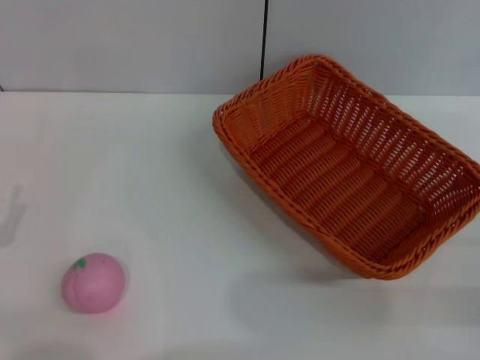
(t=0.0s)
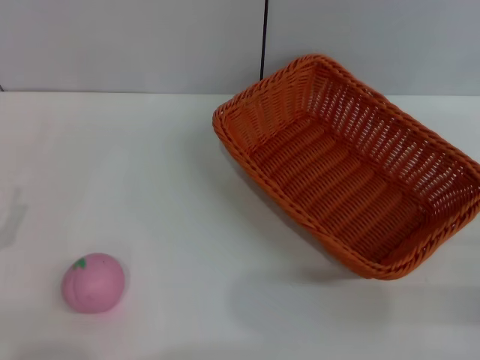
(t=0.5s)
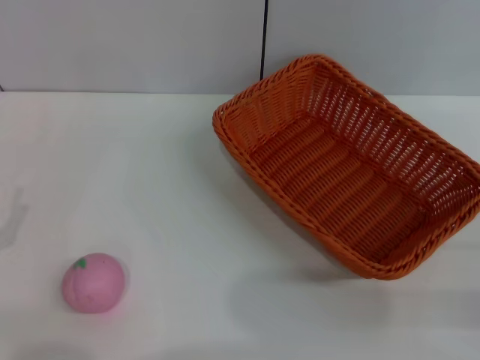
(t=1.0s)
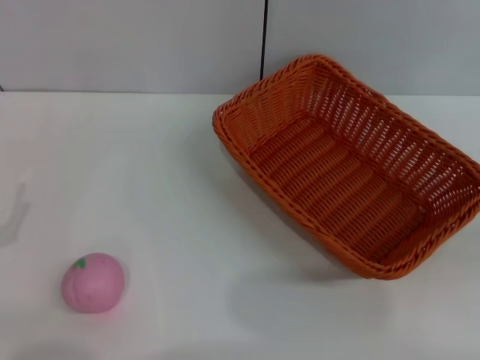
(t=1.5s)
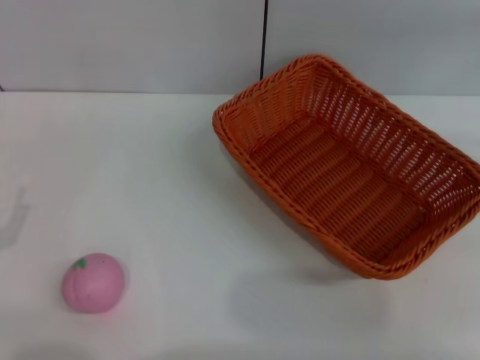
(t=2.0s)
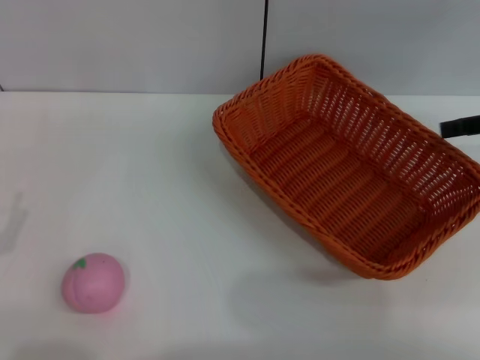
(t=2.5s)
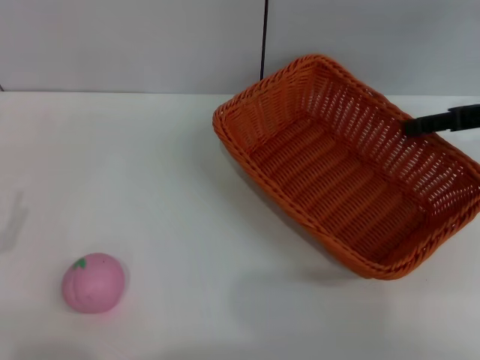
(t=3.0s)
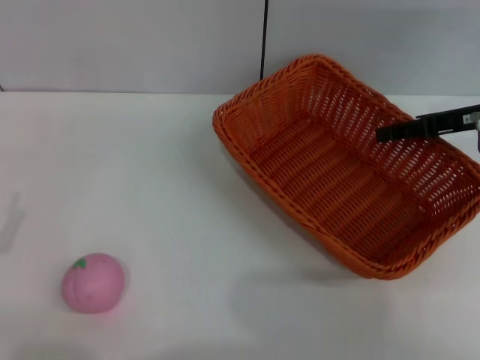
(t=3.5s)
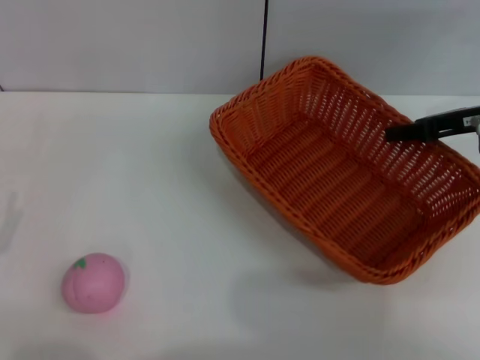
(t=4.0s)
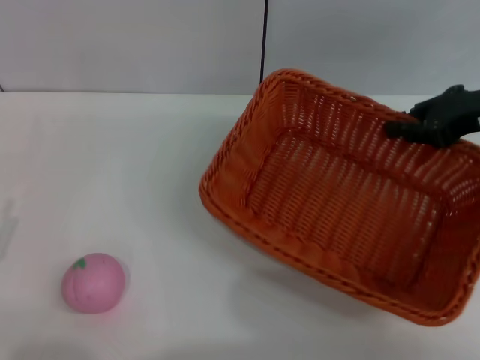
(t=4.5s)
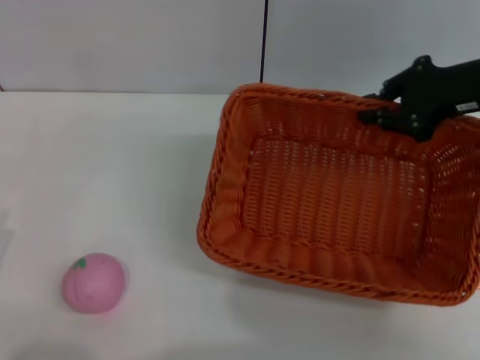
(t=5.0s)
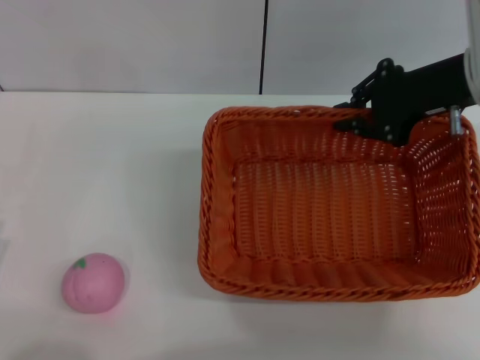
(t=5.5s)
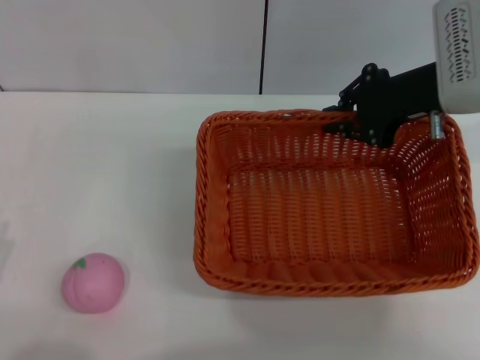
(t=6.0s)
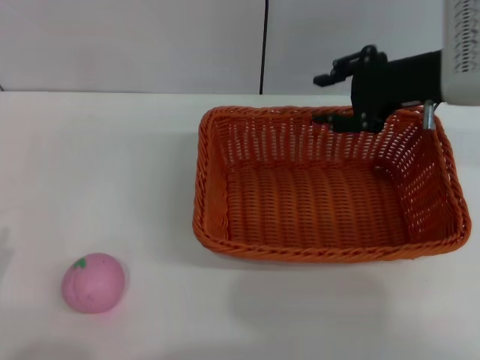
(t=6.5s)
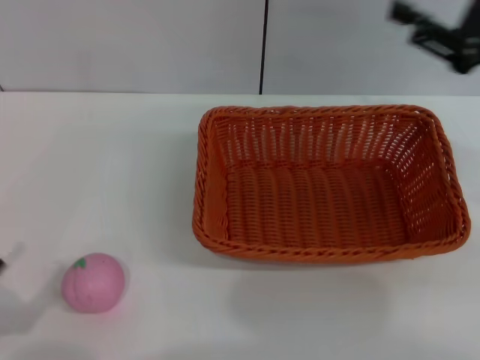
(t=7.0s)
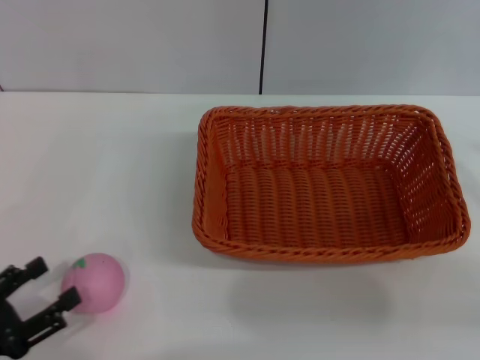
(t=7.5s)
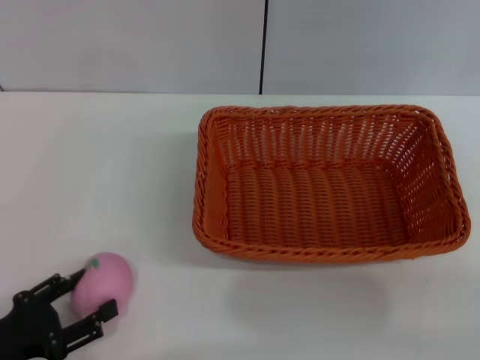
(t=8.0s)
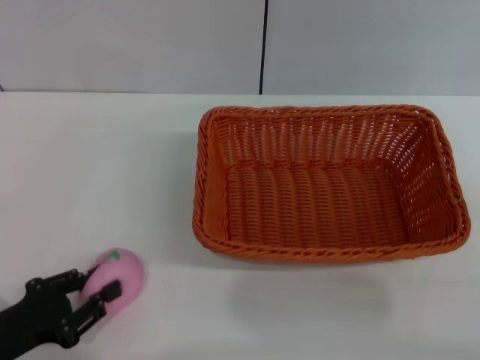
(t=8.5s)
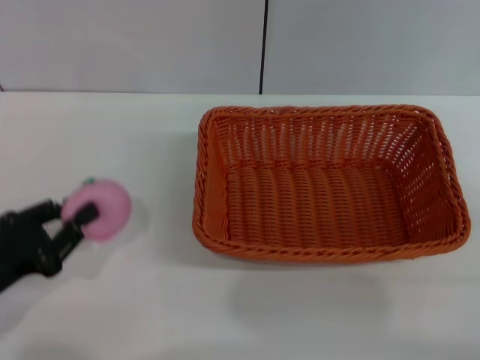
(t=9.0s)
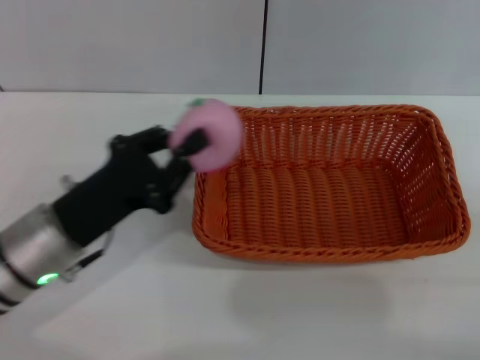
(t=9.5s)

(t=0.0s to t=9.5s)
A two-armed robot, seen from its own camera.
Step, t=0.0s - t=4.5s: Pick up the light basket with the right gripper.
Step, t=5.0s - t=6.5s: Place the light basket in the center of view with the right gripper.
Step, t=7.0s - t=9.0s: Pick up the peach with the left gripper.
t=2.0s - t=4.0s: The right gripper moves to the left, forward and downward, some 15 cm, and closes up.
t=4.0s - t=5.5s: The right gripper travels to the left by roughly 5 cm, and closes its fingers.
t=5.5s - t=7.5s: The right gripper travels backward and to the right by roughly 20 cm, and opens its fingers.
t=7.5s - t=9.5s: The right gripper goes approximately 5 cm downward. The left gripper moves forward and to the right, roughly 20 cm, and closes.

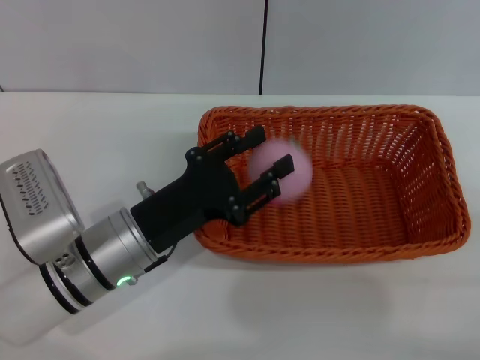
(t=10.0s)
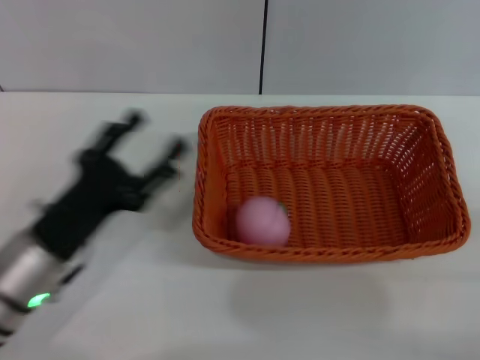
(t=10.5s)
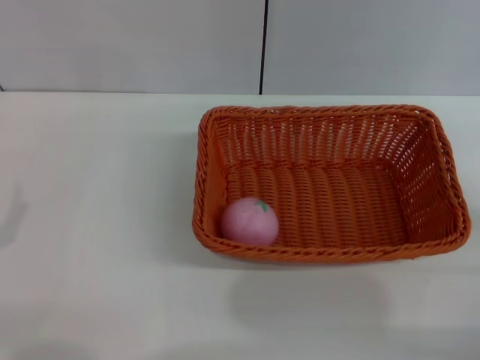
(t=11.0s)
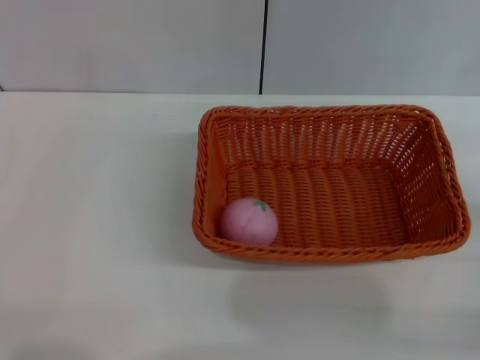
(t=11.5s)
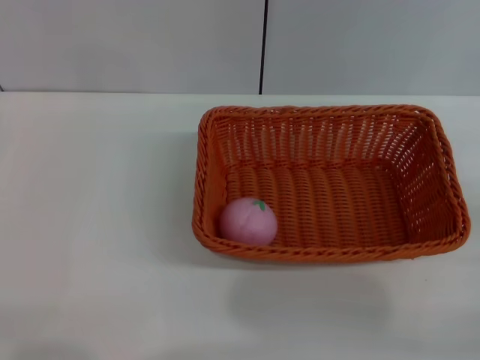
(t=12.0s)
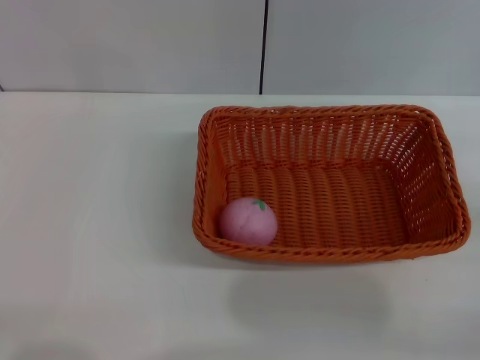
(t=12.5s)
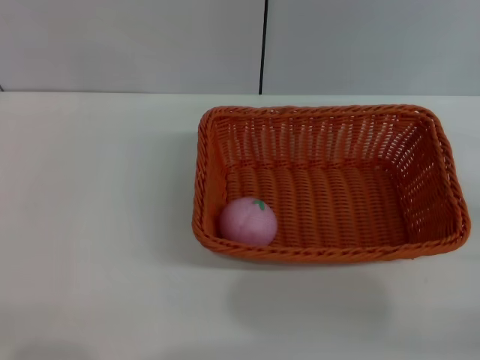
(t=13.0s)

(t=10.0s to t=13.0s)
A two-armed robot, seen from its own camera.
t=10.0s - t=11.5s: The left gripper travels to the left and backward by some 20 cm, and opens up.

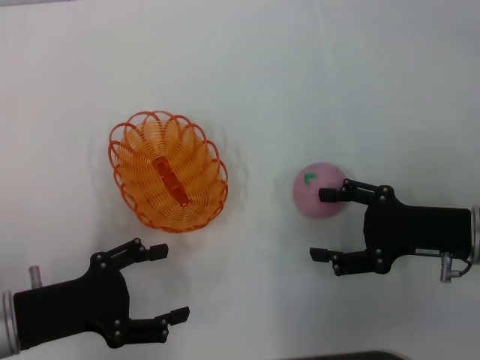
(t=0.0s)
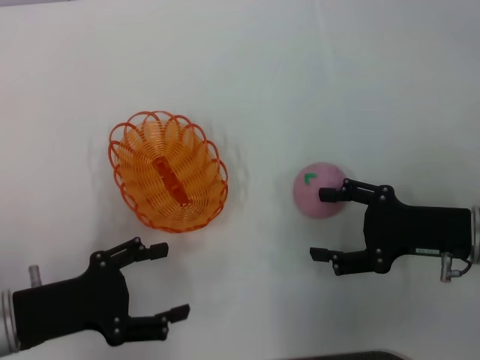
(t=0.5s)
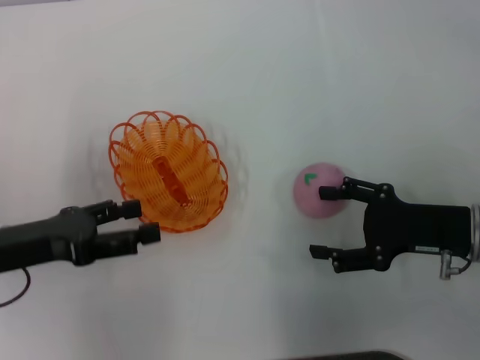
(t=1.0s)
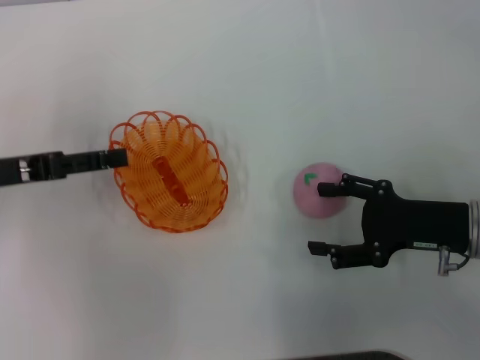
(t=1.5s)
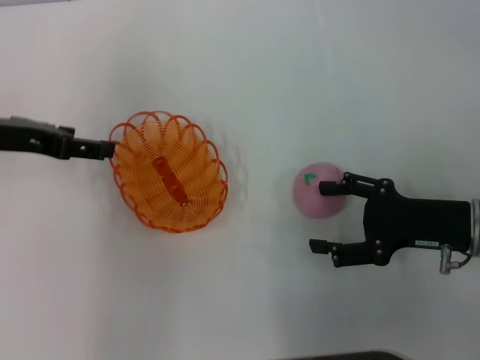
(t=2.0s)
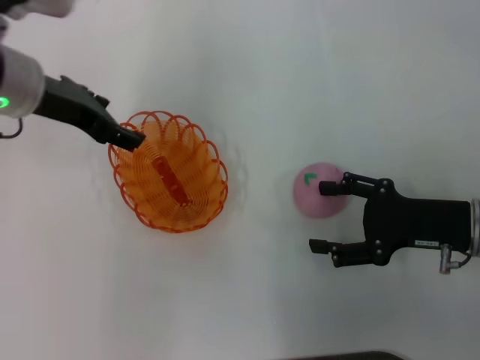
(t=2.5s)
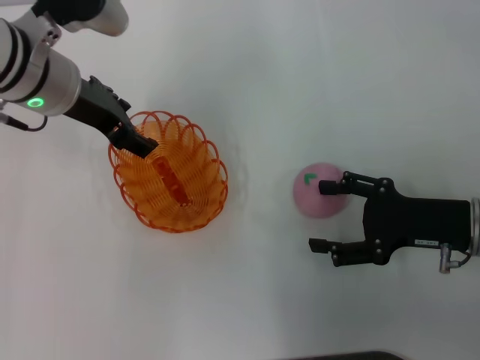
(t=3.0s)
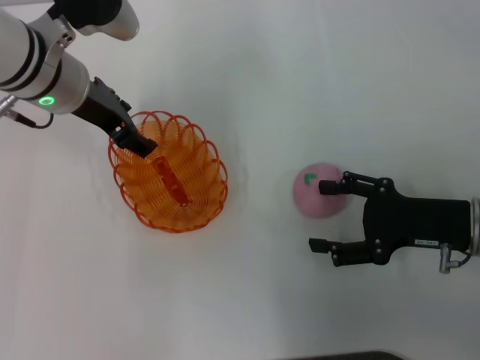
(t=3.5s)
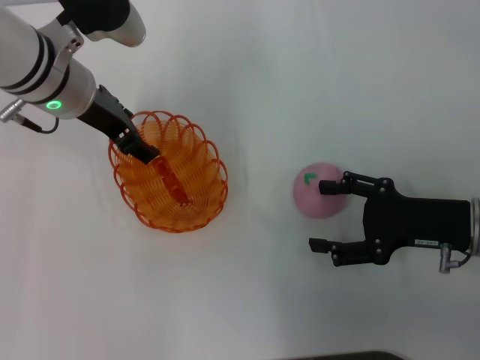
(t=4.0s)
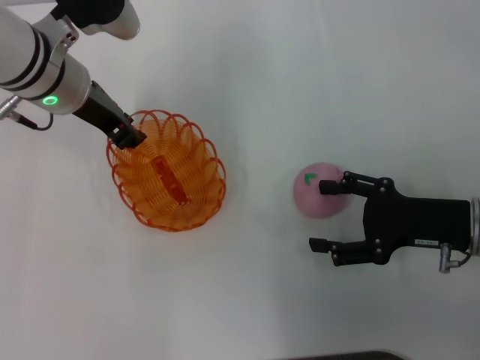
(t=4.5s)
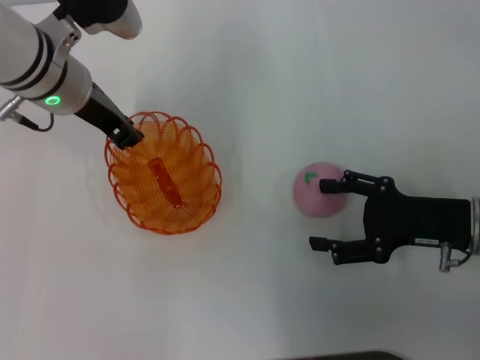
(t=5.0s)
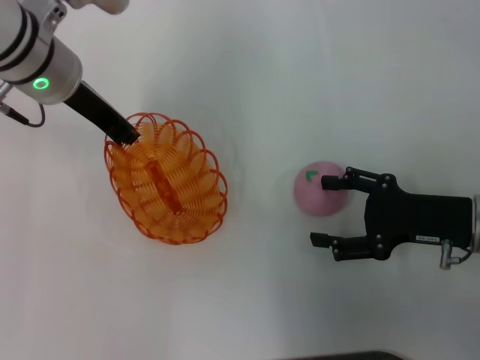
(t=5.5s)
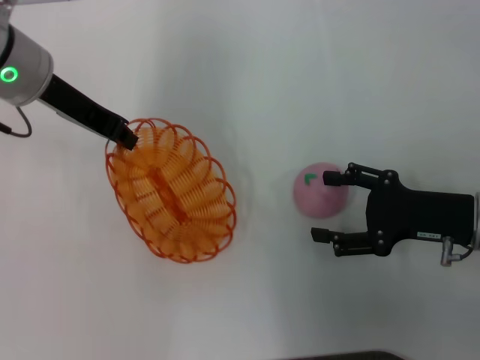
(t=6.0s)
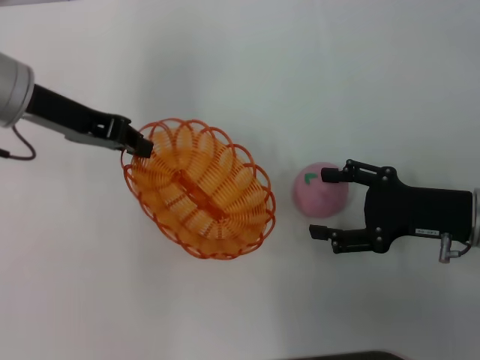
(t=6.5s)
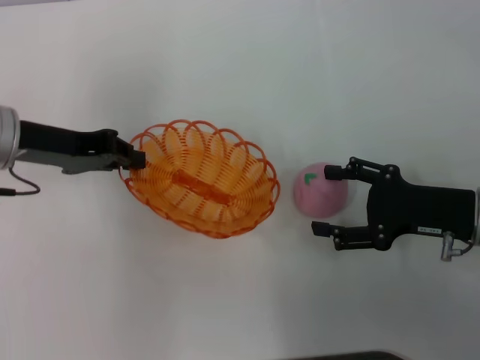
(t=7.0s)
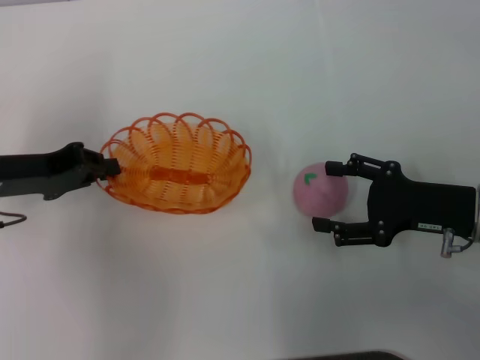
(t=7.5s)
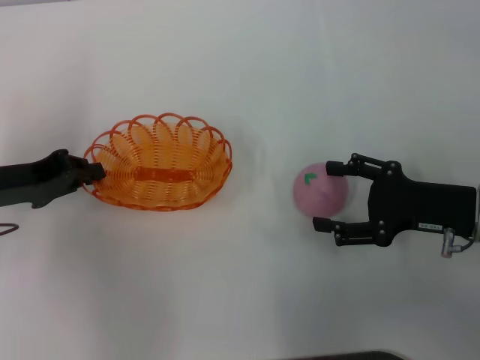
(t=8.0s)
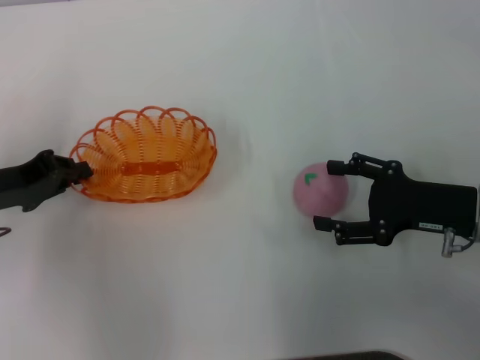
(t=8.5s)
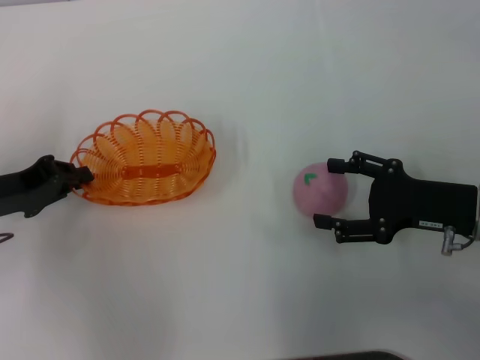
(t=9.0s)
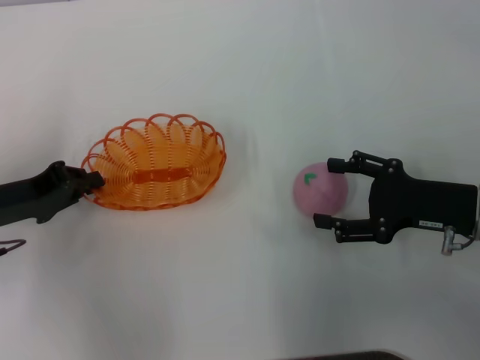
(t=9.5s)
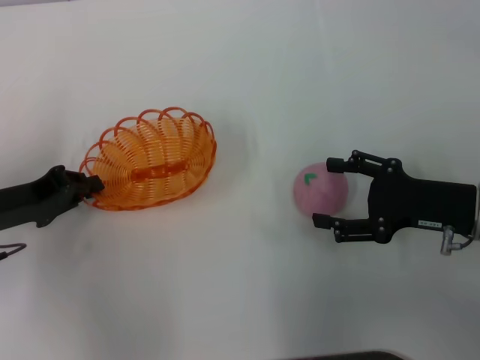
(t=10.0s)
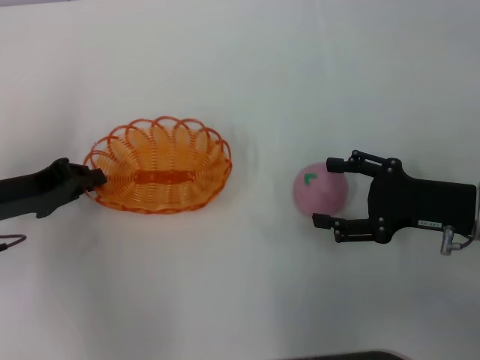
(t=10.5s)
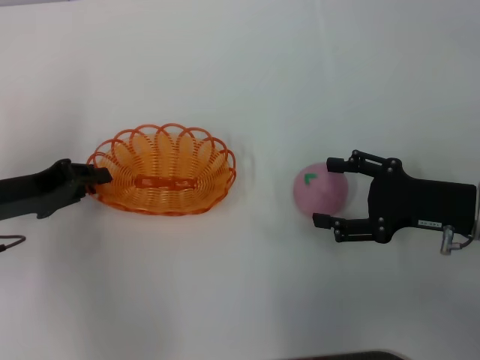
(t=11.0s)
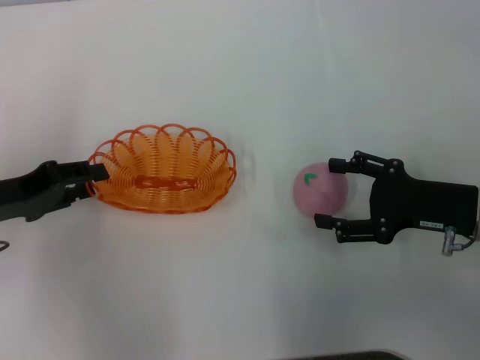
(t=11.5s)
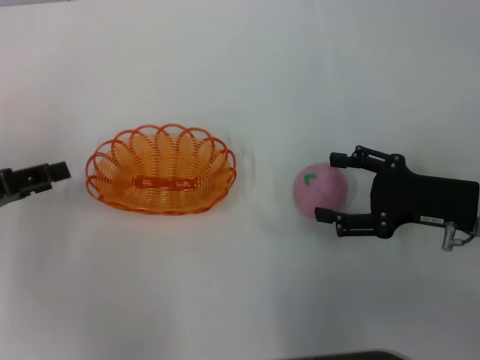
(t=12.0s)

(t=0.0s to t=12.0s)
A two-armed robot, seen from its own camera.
Step, t=0.0s - t=5.5s: Pick up the basket with the left gripper.
Step, t=6.0s - t=11.5s: Place the basket in the center of view with the left gripper.
t=0.0s - t=2.0s: The left gripper heads forward and upward, covering approximately 20 cm.
t=2.0s - t=4.0s: The left gripper travels to the right and forward by some 10 cm.
t=4.0s - t=6.0s: The left gripper changes place by roughly 5 cm, and closes its fingers.
t=6.0s - t=8.0s: The left gripper heads downward, to the left and backward, covering about 15 cm.
t=8.0s - t=10.0s: The grippers stay close to where they were, moving slightly.
t=10.0s - t=12.0s: The left gripper moves about 5 cm, and opens its fingers.

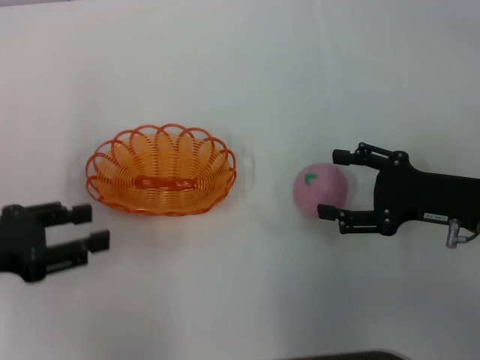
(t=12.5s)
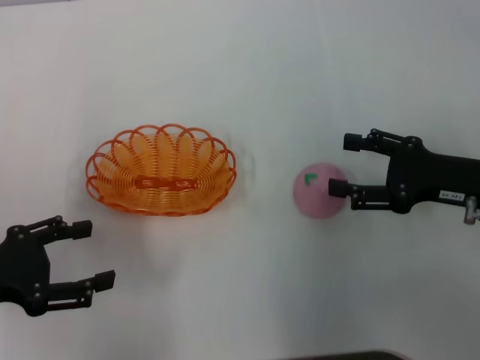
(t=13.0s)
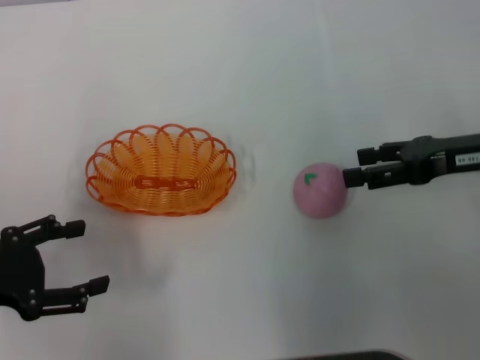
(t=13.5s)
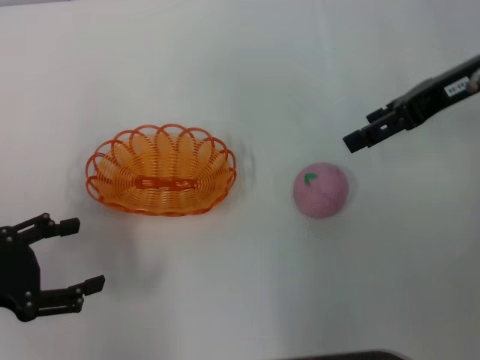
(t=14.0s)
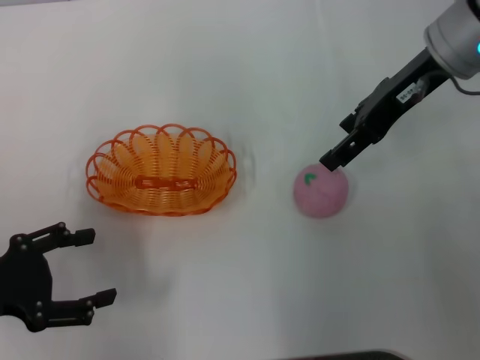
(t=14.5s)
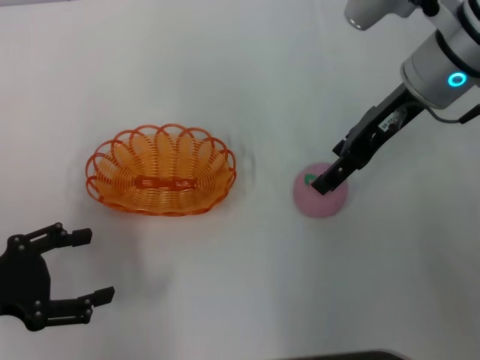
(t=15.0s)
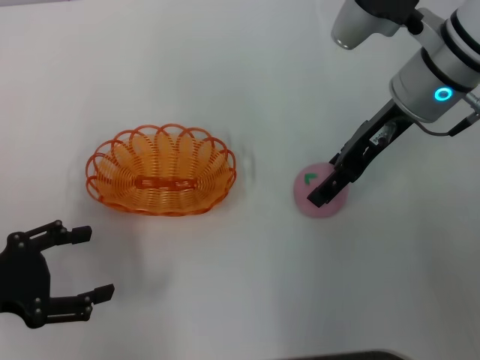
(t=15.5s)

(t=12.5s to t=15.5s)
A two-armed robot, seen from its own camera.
t=12.5s - t=14.0s: The right gripper heads upward and forward, covering roughly 20 cm.
t=14.0s - t=15.5s: The right gripper heads to the left, covering approximately 10 cm.
